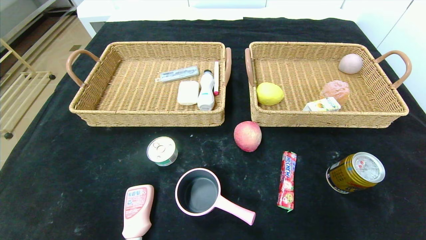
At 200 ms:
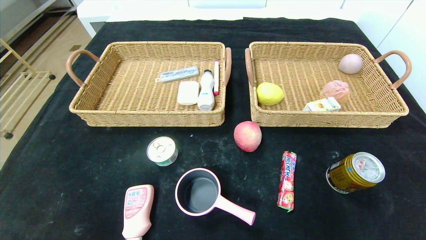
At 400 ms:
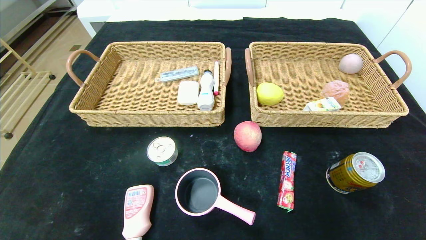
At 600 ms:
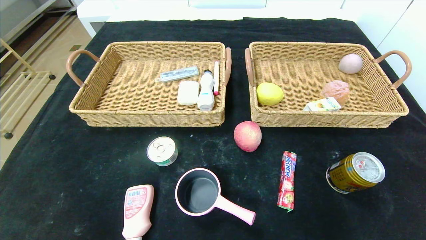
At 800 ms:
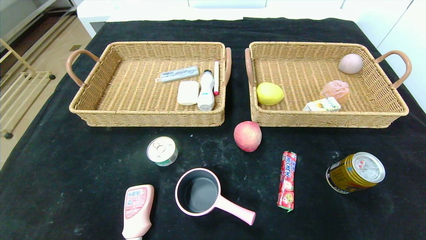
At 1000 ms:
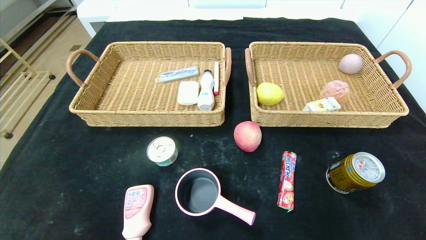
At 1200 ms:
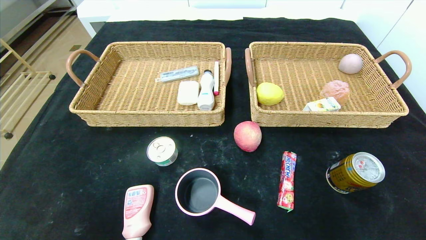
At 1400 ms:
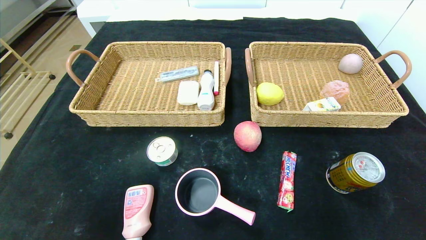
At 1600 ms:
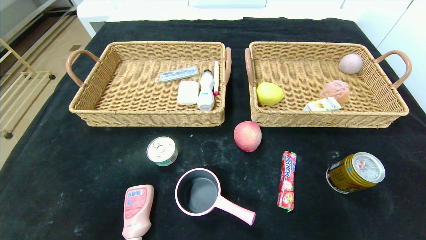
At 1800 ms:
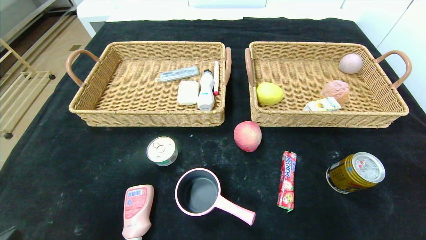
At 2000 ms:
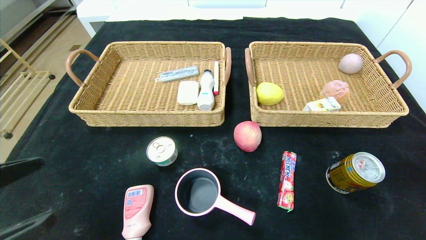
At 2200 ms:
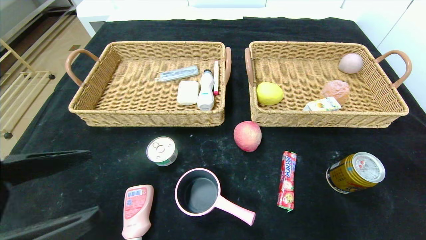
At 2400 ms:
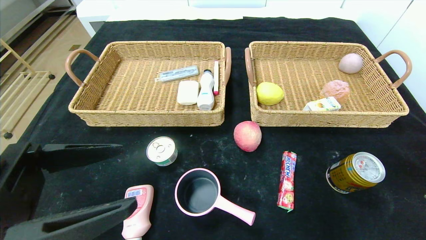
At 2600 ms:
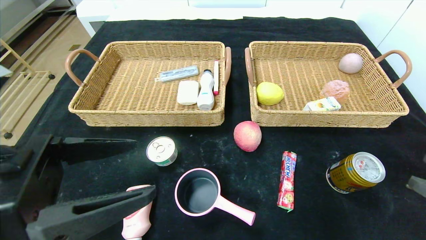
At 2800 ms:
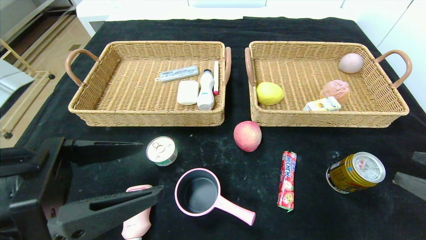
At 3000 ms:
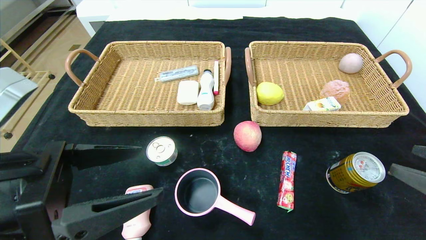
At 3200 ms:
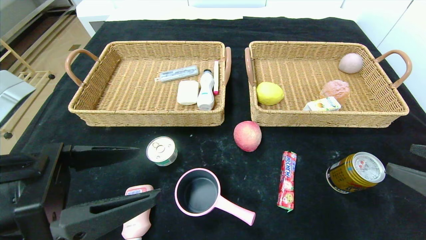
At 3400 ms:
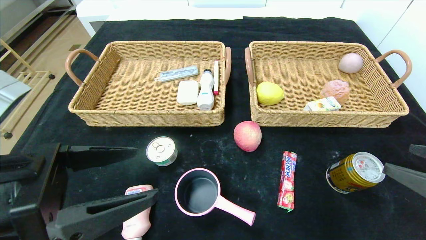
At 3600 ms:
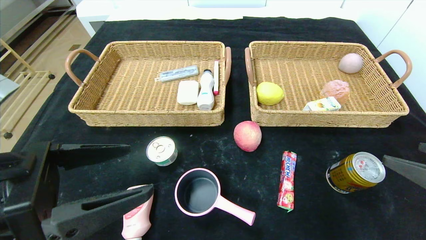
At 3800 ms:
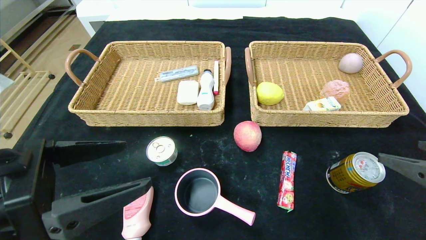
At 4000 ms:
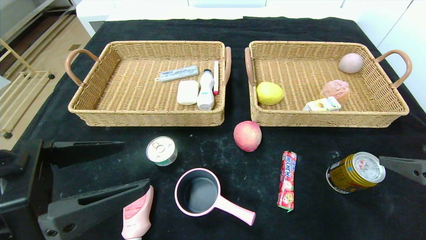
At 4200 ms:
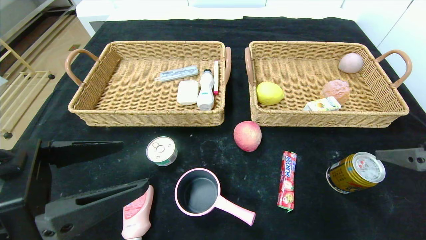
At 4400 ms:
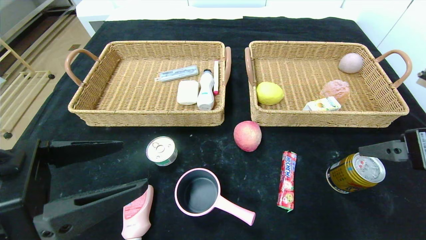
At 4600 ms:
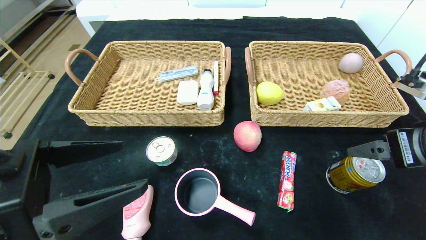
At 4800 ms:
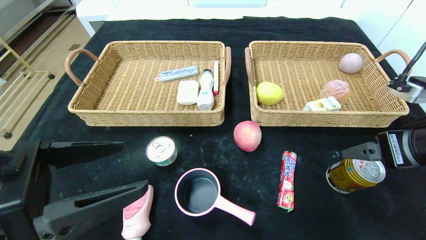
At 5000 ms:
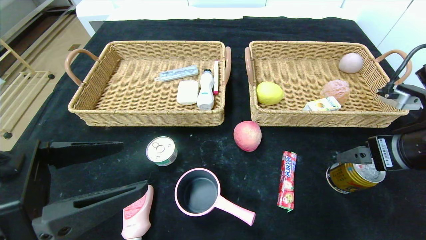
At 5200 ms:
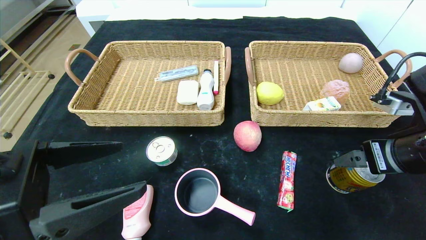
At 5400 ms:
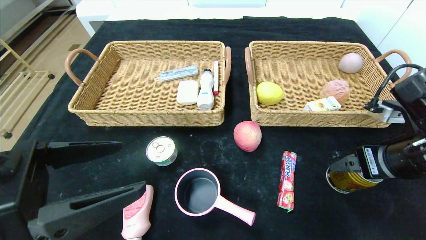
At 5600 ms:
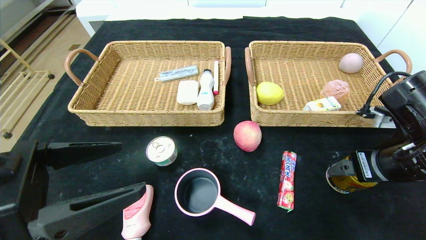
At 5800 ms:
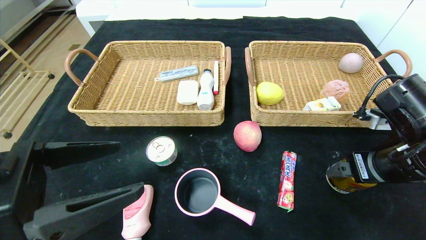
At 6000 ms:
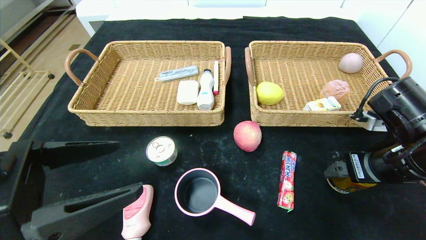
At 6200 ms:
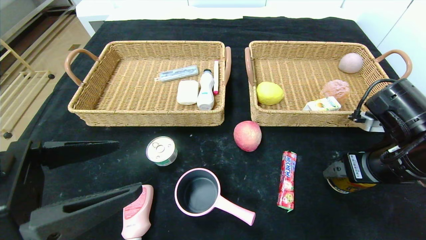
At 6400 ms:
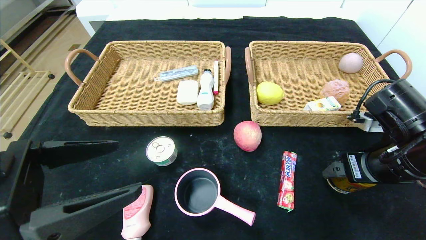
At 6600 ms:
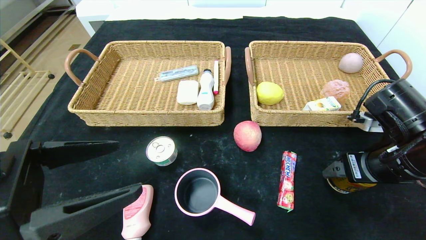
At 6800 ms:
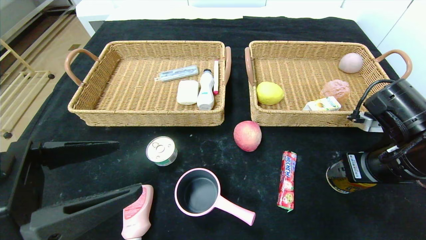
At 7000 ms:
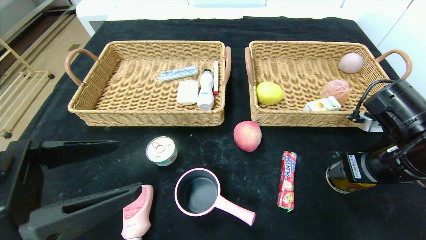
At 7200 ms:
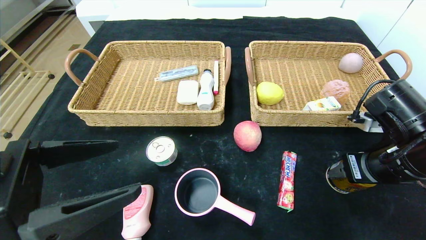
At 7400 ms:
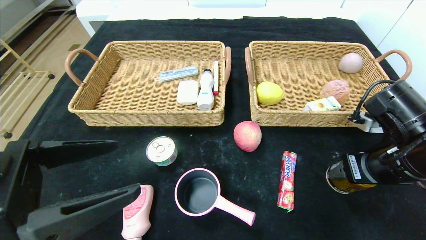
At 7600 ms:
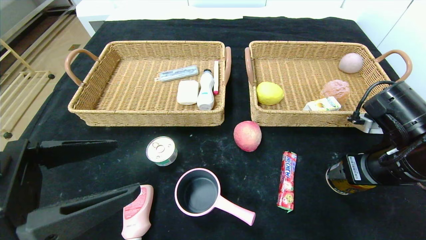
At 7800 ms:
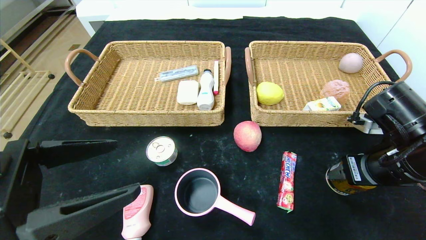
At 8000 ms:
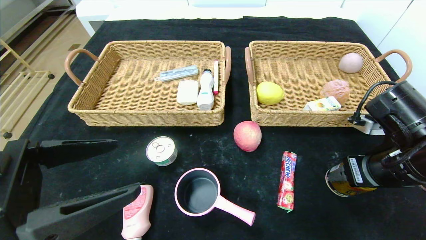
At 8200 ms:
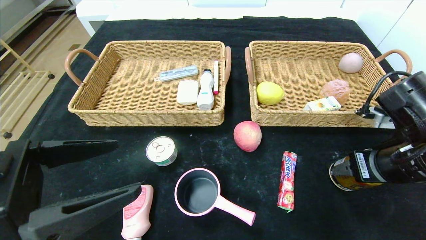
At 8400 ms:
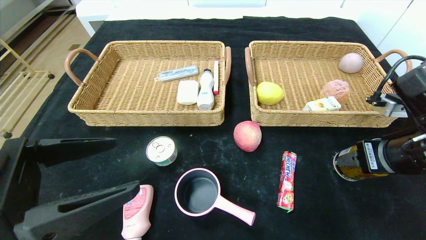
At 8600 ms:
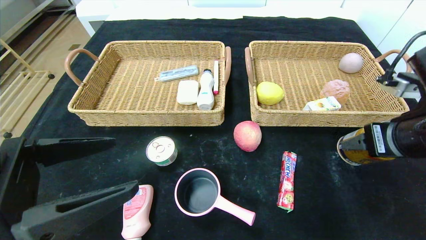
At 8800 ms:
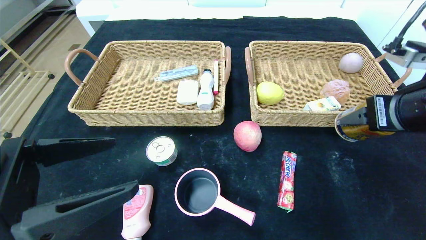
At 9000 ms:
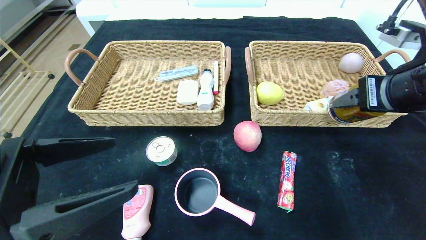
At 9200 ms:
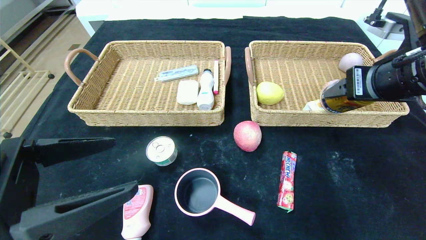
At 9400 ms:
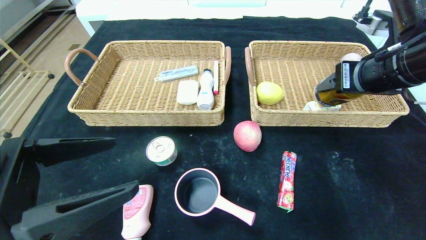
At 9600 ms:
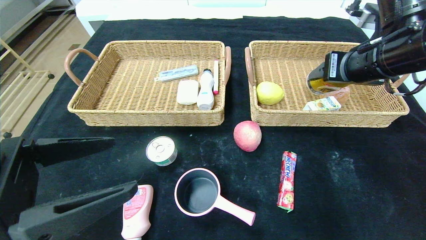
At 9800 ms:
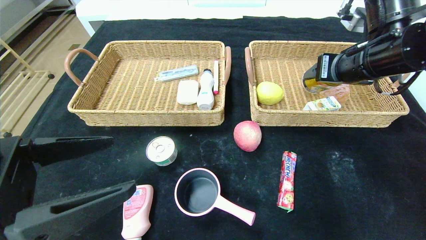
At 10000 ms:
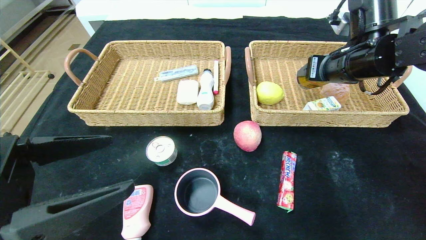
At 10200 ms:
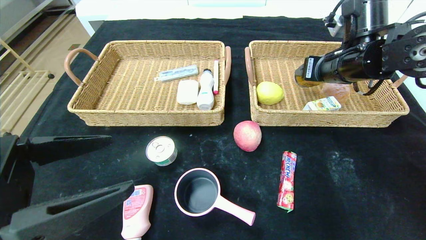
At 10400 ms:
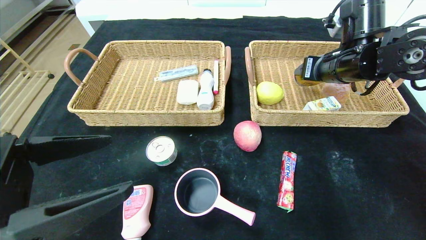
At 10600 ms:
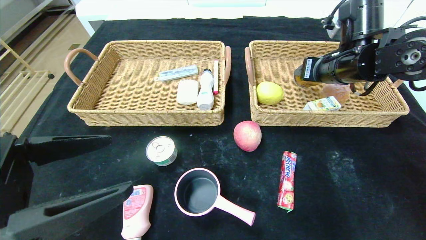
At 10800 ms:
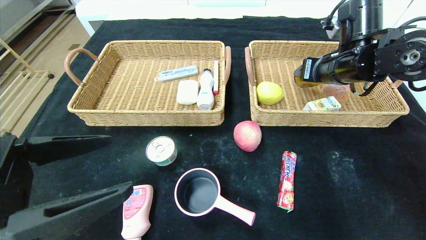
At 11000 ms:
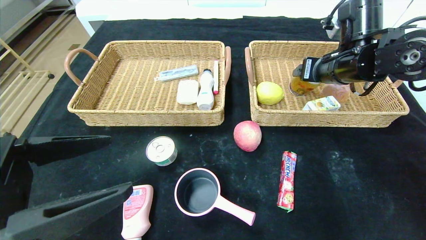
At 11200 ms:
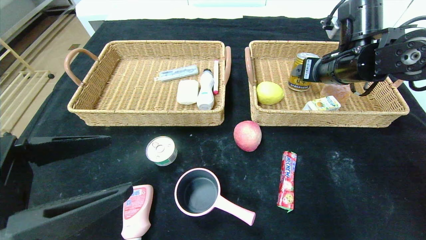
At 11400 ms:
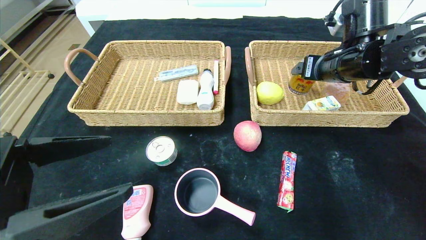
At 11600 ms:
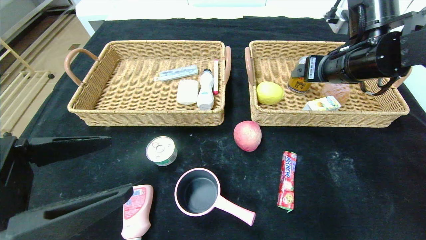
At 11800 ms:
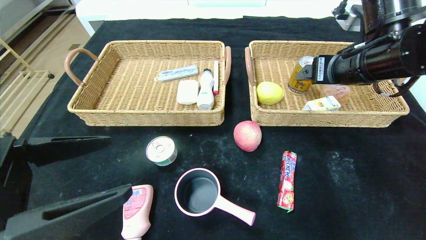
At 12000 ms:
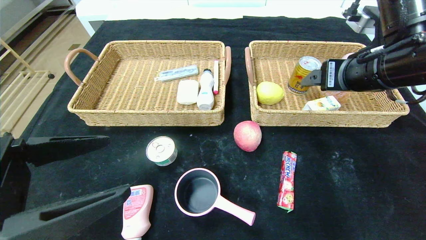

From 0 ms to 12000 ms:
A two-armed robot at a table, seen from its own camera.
Step, from 0 ms to 11000 ms: Grasp the Red Bull and put it in the right basket.
From 1600 ms to 3000 ms: The left gripper goes some 15 cm forward, to the right and upward, while the right gripper shifts about 15 cm forward and upward.
From 3000 ms to 4400 ms: The right gripper goes roughly 5 cm forward.
From 4400 ms to 6000 ms: The right gripper shifts roughly 10 cm downward and forward.
From 6000 ms to 7600 ms: Both grippers stay about where they are.
From 7600 ms to 9000 ms: The right gripper is displaced upward by about 10 cm.
From 9000 ms to 10400 ms: The right gripper moves forward, roughly 15 cm.
From 10400 ms to 12000 ms: The right gripper heads backward, covering about 10 cm.

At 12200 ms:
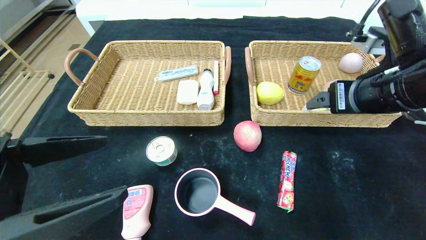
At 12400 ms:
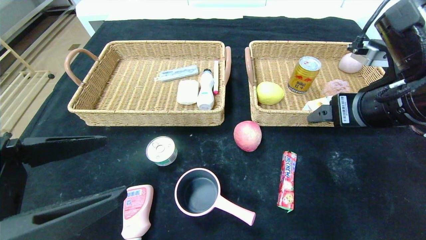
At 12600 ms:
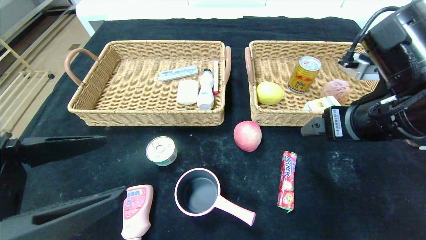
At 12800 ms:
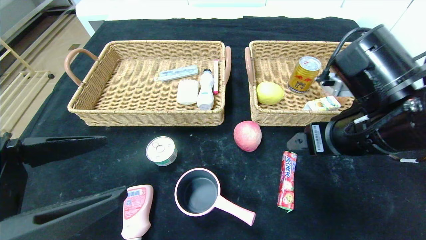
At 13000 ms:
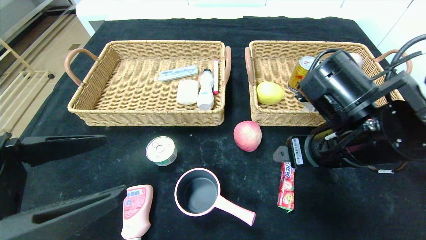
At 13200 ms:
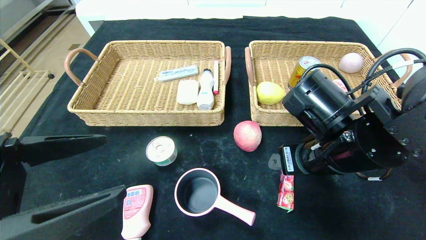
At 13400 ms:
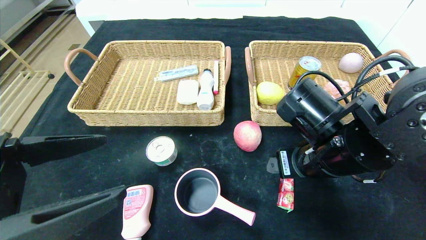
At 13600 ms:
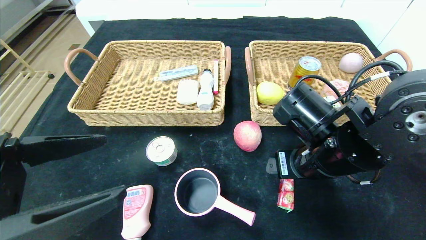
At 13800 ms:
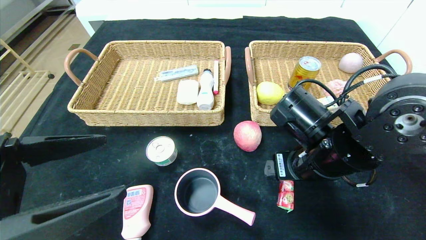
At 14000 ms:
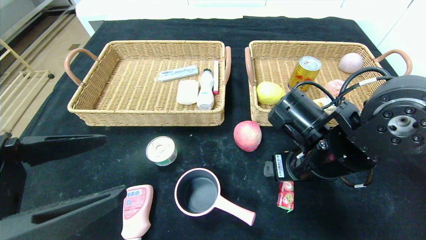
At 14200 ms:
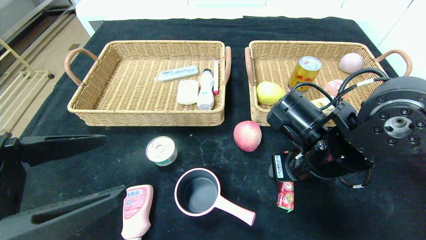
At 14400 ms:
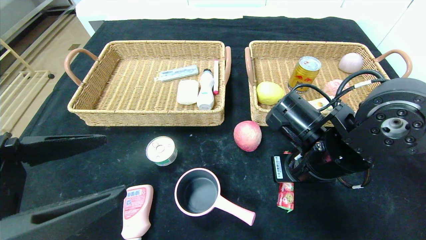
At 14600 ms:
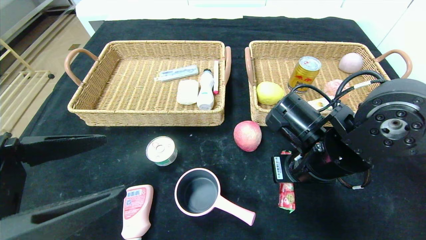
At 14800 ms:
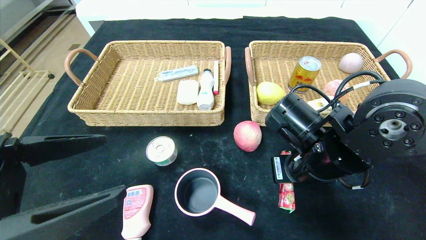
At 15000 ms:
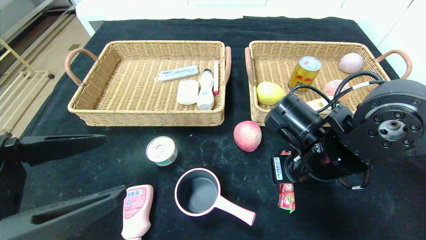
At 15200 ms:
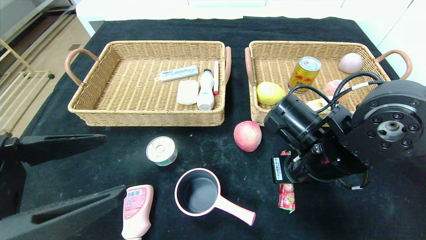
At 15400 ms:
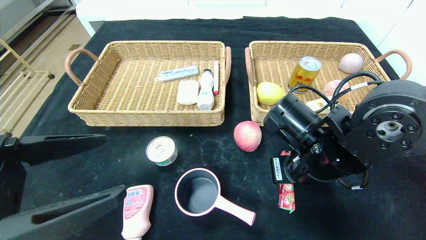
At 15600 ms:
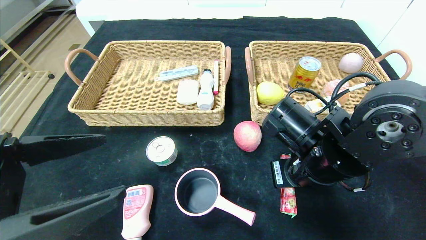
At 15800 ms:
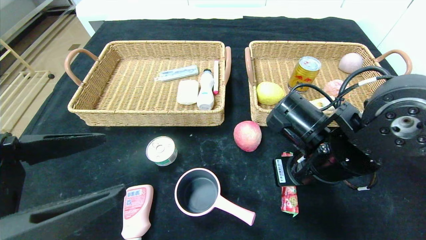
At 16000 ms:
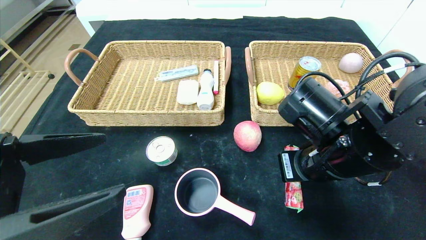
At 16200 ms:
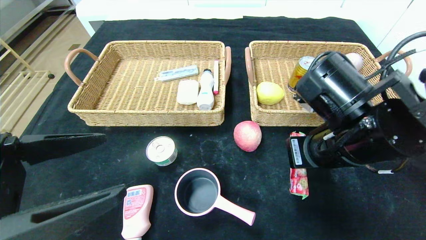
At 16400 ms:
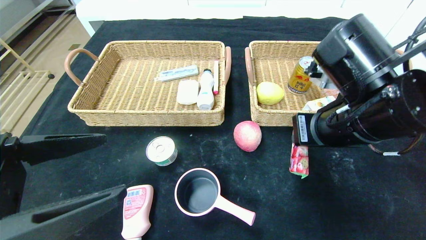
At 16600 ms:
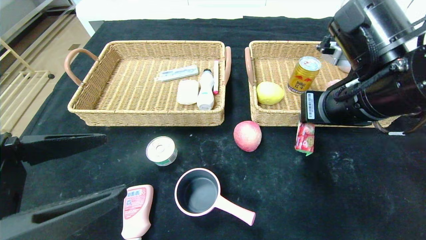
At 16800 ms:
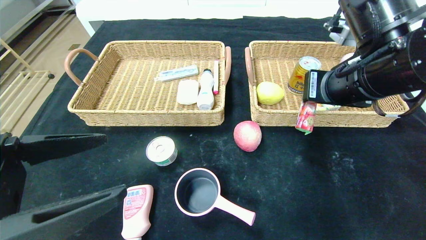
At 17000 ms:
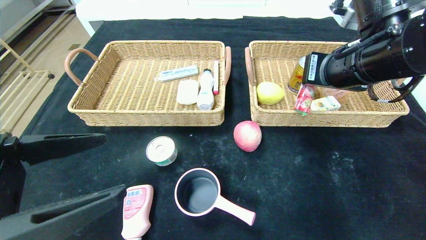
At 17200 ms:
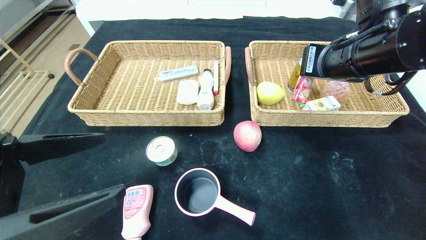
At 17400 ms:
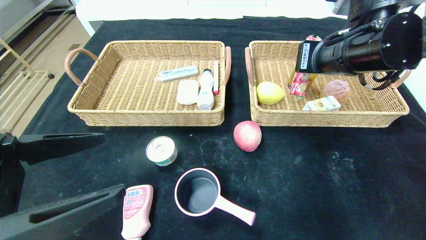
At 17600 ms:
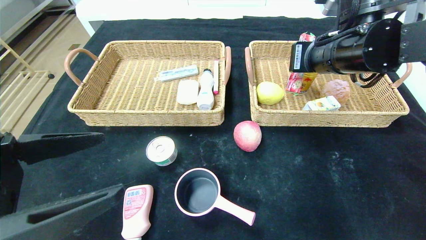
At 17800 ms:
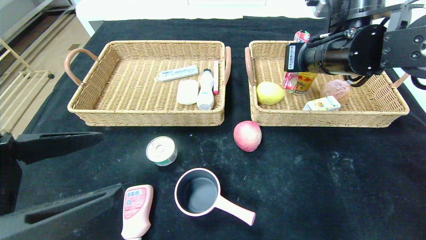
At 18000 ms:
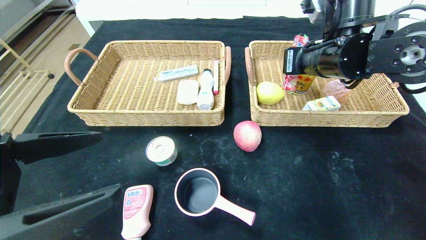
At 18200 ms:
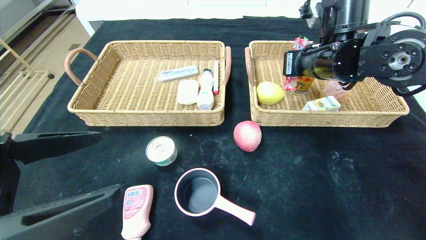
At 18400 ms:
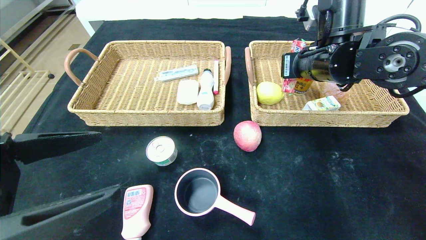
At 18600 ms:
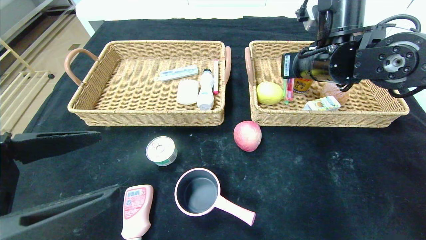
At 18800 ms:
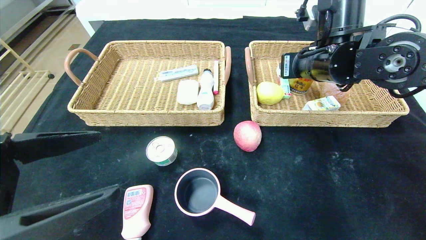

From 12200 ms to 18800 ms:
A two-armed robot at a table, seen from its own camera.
From 12200 ms to 13800 ms: The right gripper moves downward and to the left, about 15 cm.
From 13800 ms to 15400 ms: The right gripper closes its fingers.
From 15400 ms to 17200 ms: The right gripper goes roughly 15 cm upward.
From 17200 ms to 18800 ms: The right gripper goes approximately 5 cm forward, and opens up.
